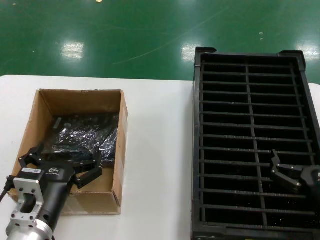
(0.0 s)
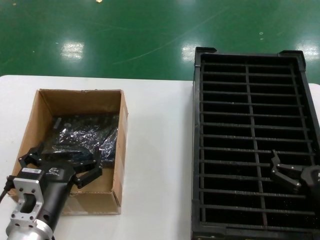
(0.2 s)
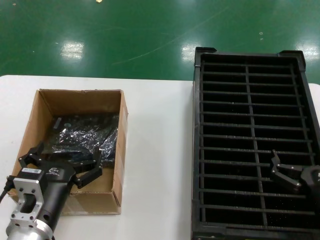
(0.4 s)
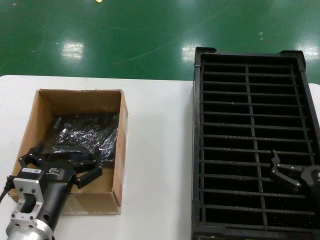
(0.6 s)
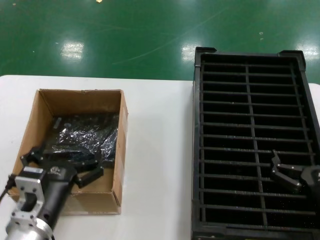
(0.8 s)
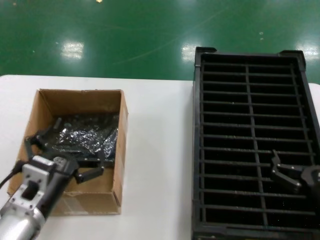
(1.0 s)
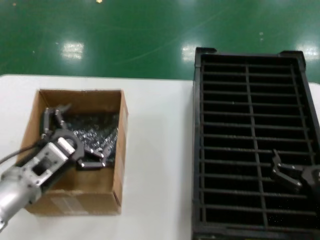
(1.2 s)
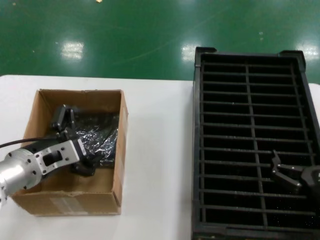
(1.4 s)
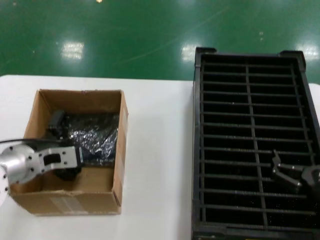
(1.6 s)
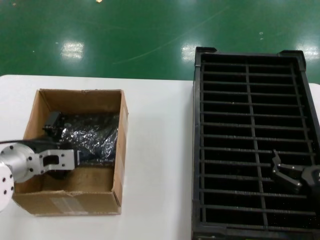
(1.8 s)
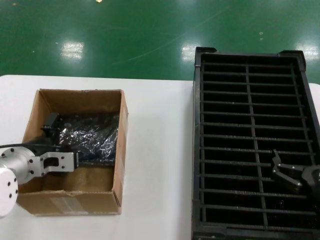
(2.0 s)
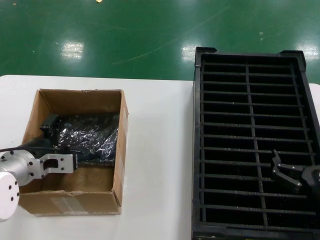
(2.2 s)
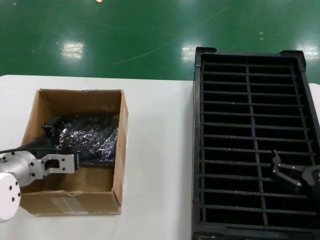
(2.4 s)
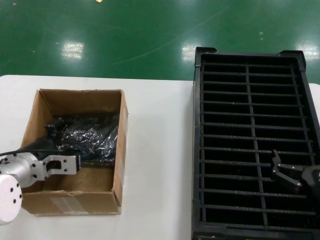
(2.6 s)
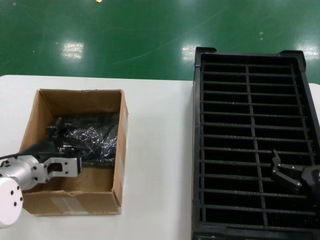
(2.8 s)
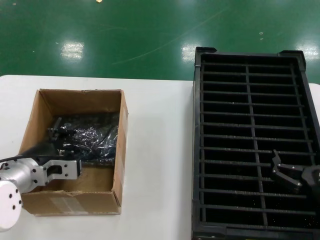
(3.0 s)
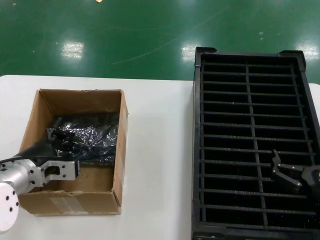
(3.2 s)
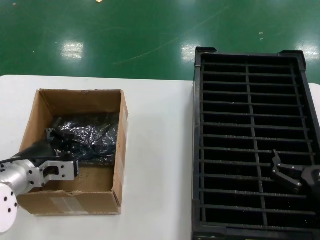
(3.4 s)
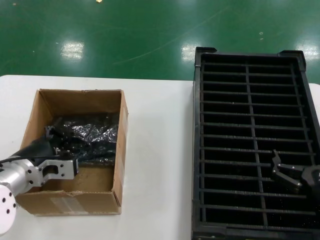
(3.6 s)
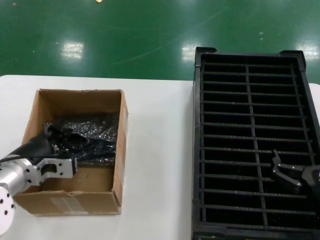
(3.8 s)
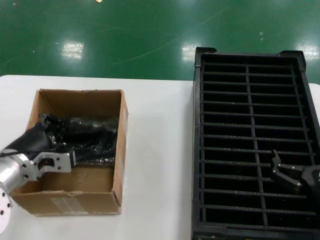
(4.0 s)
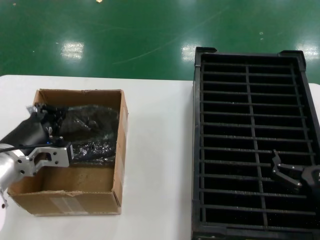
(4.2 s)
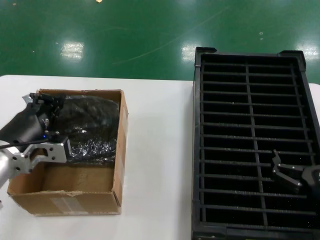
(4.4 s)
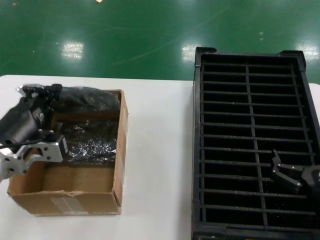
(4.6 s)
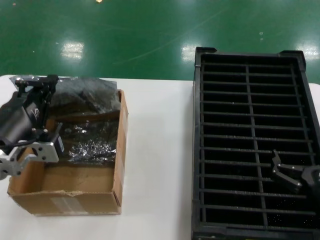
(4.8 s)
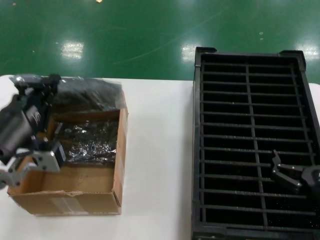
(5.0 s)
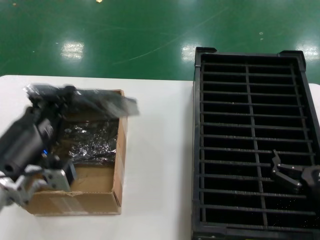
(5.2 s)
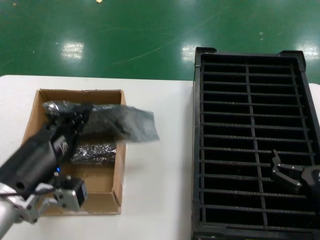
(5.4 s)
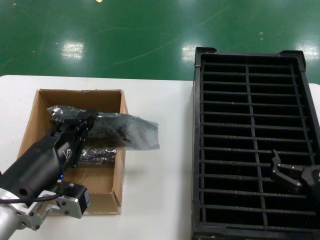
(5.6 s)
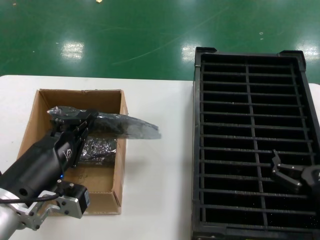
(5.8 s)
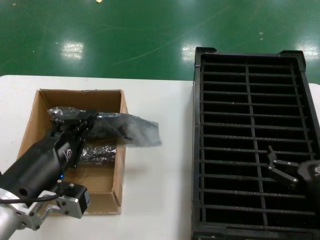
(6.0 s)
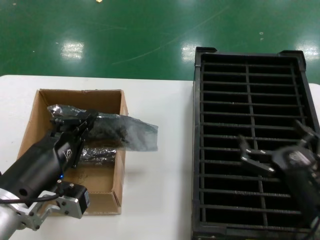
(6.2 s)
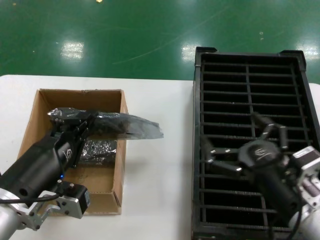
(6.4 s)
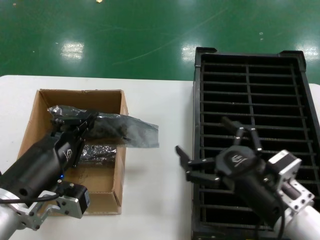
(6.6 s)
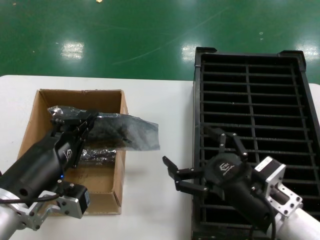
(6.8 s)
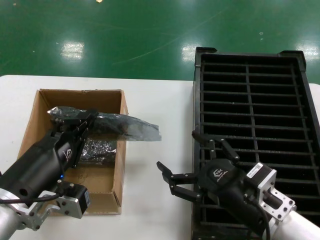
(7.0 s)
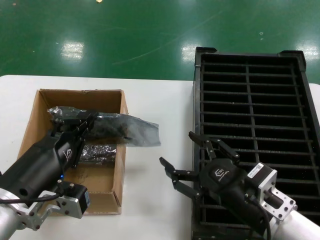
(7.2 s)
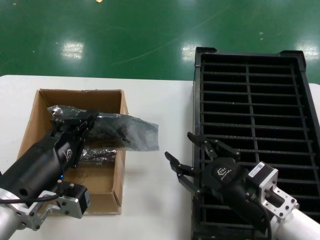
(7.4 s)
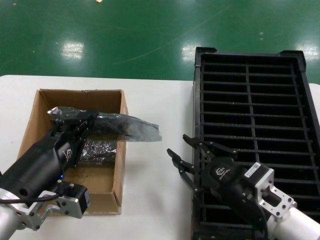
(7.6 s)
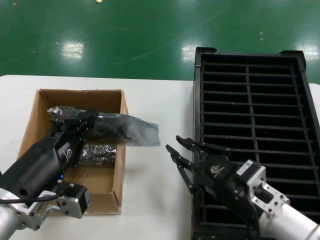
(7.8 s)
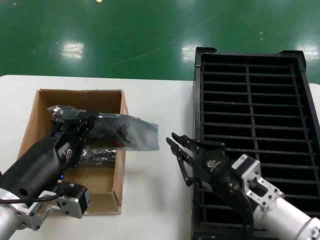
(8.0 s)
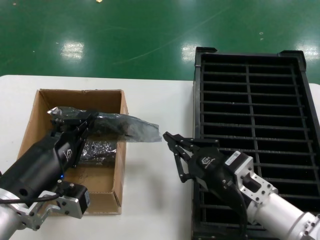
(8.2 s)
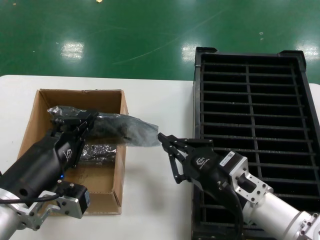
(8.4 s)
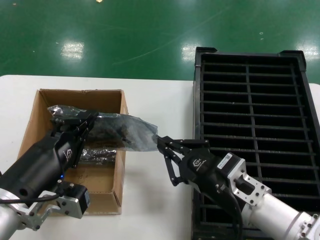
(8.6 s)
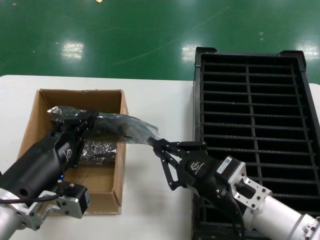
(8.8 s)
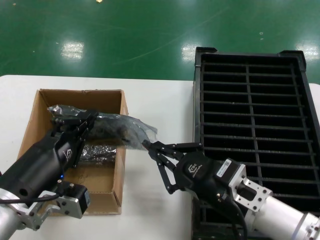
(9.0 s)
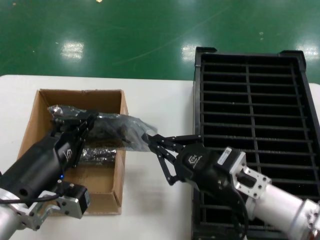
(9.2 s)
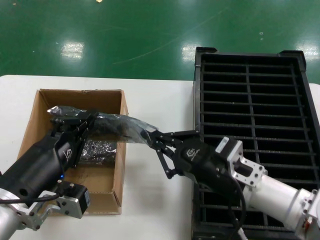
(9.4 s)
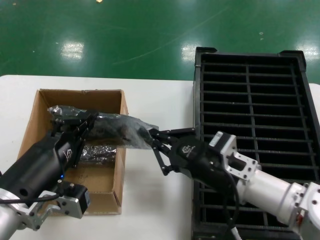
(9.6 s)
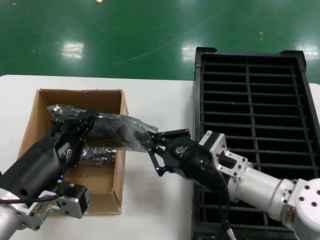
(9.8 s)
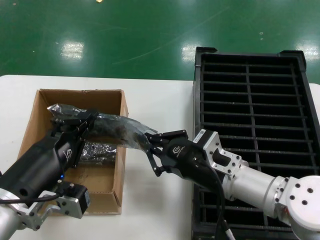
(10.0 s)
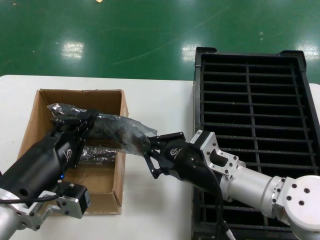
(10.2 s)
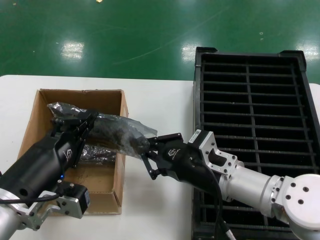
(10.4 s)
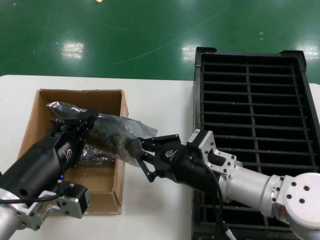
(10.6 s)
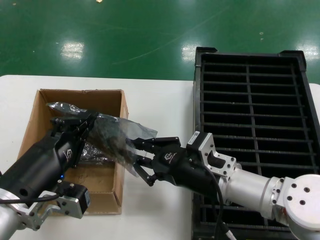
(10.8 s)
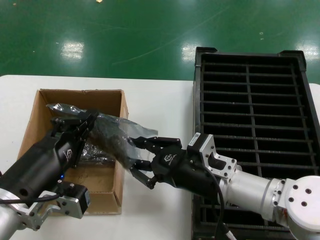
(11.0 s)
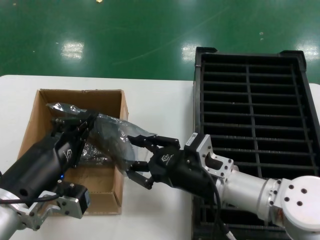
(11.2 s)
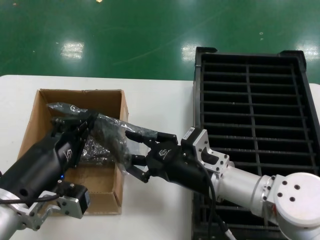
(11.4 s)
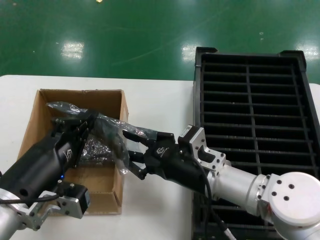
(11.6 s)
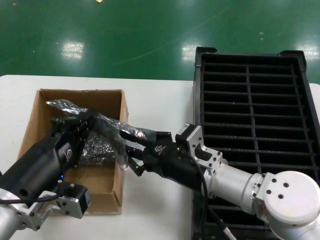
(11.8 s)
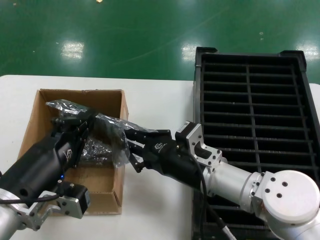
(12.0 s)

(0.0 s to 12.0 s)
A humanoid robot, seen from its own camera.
Task of the whole recording: take out graphics card from box remove packaging put into black container.
Step, 0.0 s - 3.4 s: Grasp the bag.
Step, 3.6 s - 5.4 s: Lift the bag.
0.0 s - 1.6 s: The left hand goes approximately 15 cm forward, upward and to the left.
1.6 s - 3.0 s: The hands move only a little.
3.0 s - 4.4 s: The left hand heads upward, covering about 5 cm.
4.4 s - 6.0 s: The left hand shifts some 10 cm backward and to the right.
6.0 s - 7.6 s: The right hand heads to the left, covering about 10 cm.
7.6 s - 9.0 s: There are only small adjustments of the hands.
9.0 s - 10.4 s: The right hand heads forward, covering about 5 cm.
10.4 s - 12.0 s: There are only small adjustments of the hands.

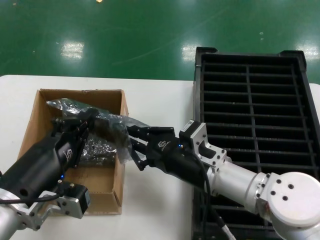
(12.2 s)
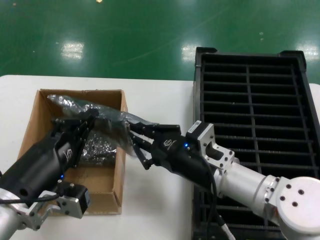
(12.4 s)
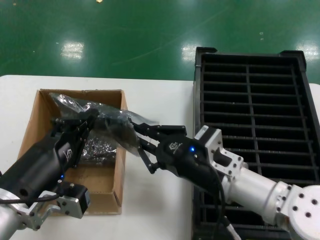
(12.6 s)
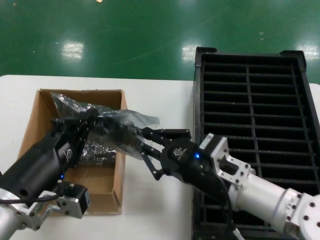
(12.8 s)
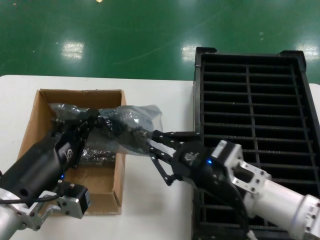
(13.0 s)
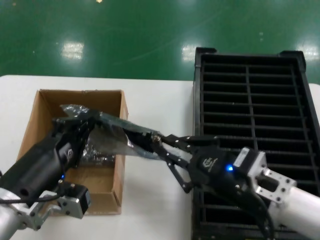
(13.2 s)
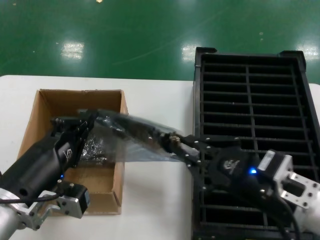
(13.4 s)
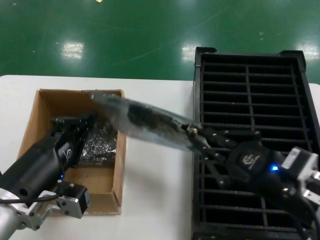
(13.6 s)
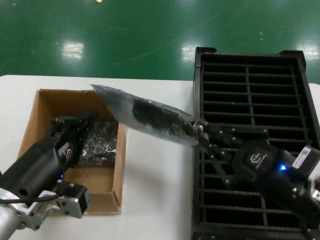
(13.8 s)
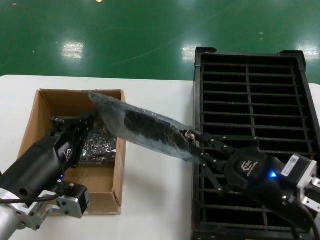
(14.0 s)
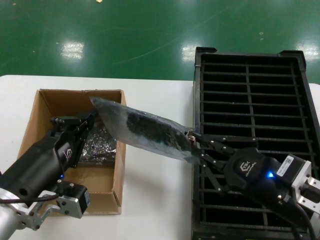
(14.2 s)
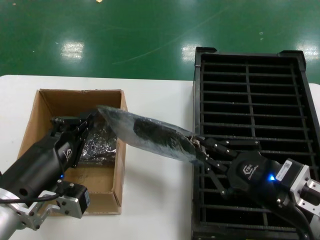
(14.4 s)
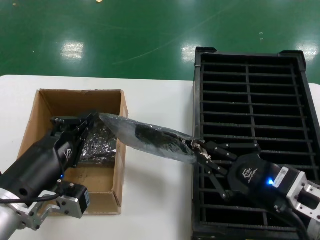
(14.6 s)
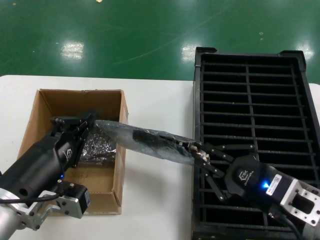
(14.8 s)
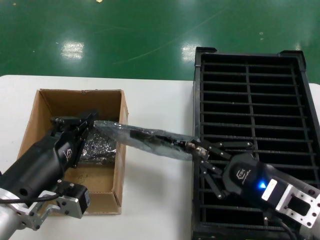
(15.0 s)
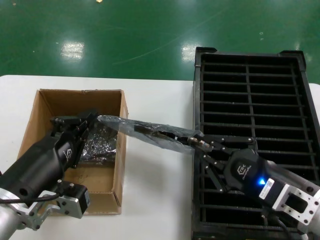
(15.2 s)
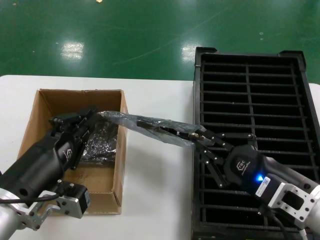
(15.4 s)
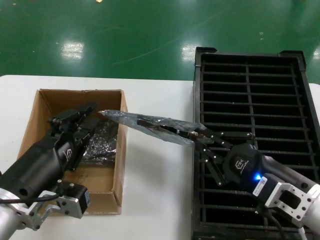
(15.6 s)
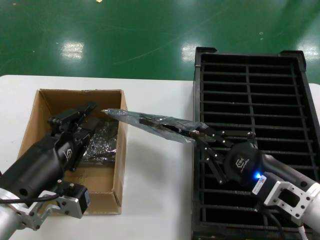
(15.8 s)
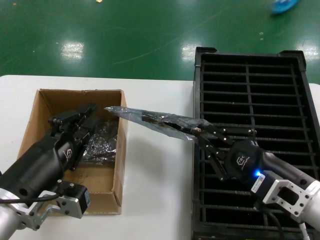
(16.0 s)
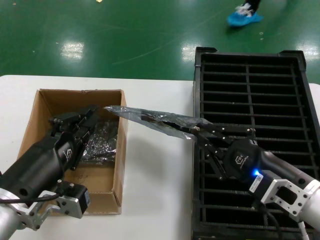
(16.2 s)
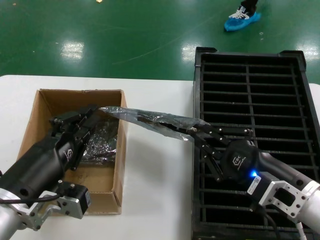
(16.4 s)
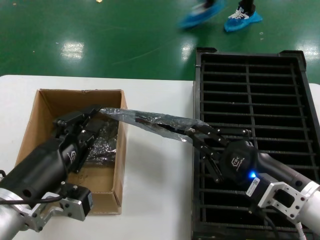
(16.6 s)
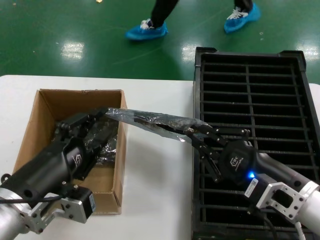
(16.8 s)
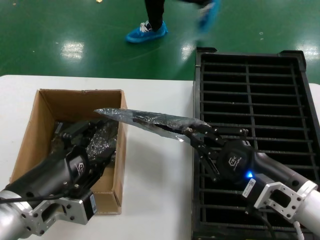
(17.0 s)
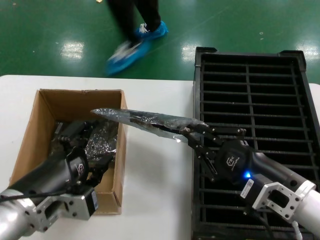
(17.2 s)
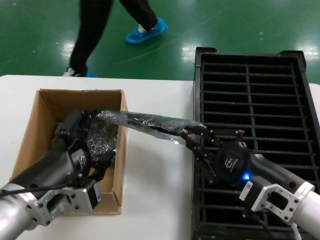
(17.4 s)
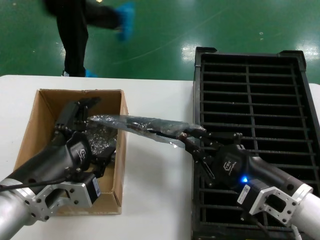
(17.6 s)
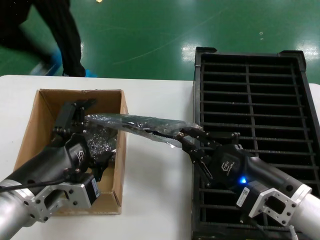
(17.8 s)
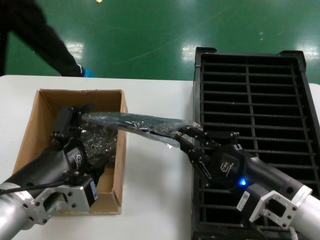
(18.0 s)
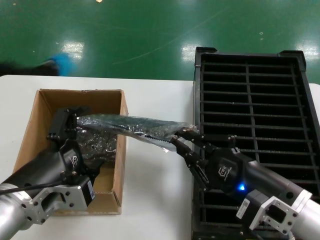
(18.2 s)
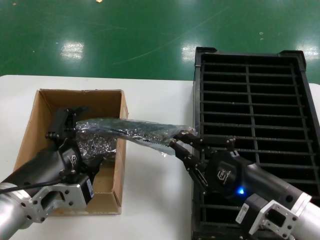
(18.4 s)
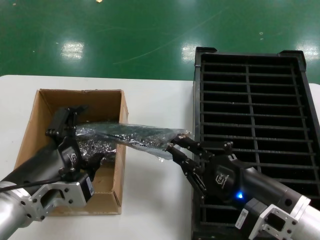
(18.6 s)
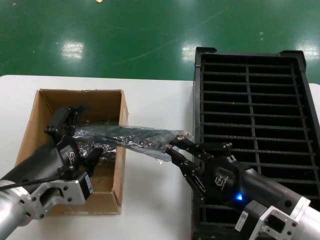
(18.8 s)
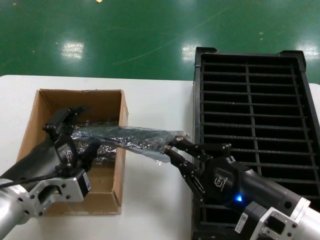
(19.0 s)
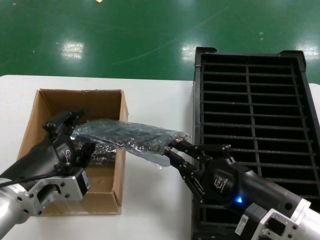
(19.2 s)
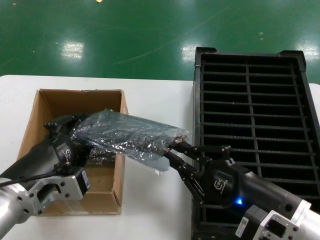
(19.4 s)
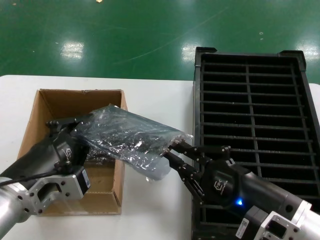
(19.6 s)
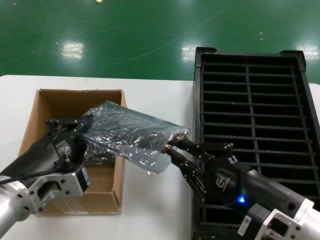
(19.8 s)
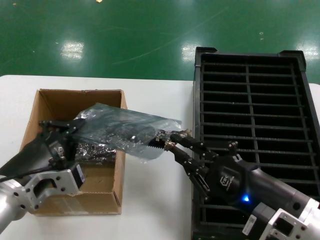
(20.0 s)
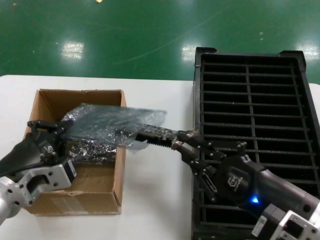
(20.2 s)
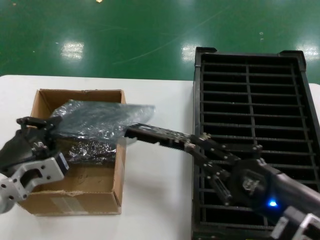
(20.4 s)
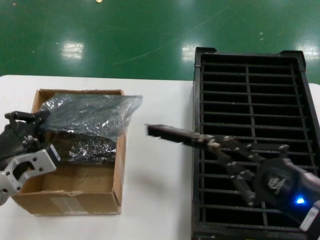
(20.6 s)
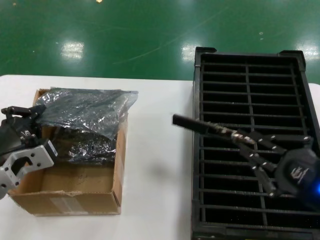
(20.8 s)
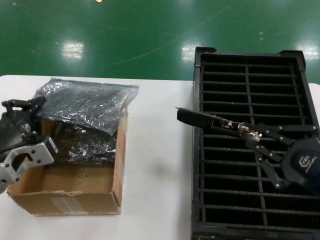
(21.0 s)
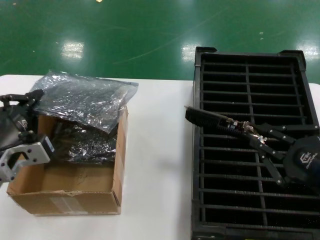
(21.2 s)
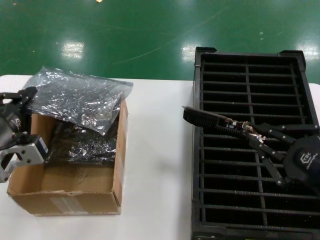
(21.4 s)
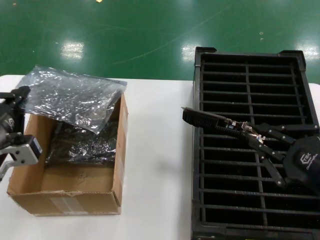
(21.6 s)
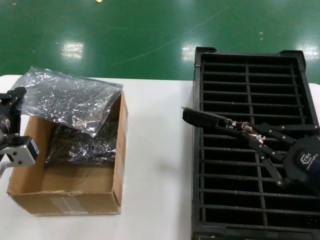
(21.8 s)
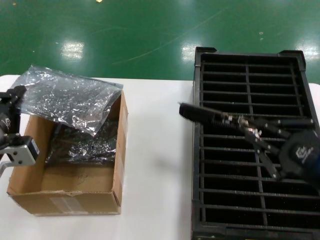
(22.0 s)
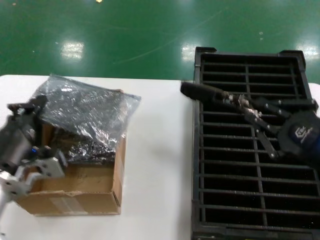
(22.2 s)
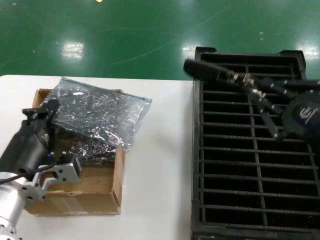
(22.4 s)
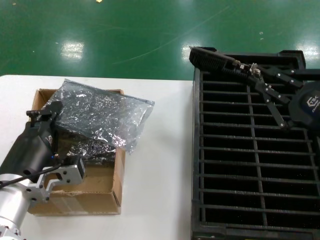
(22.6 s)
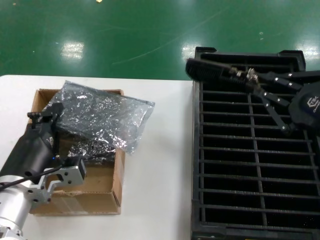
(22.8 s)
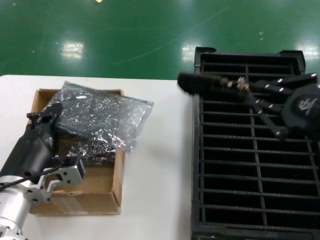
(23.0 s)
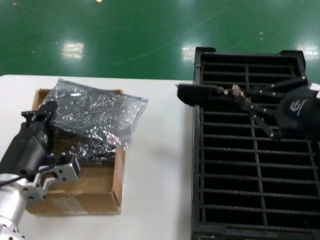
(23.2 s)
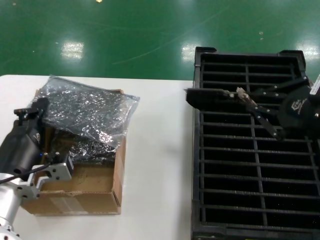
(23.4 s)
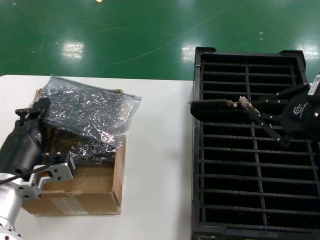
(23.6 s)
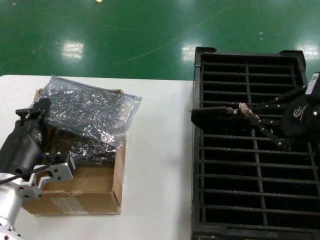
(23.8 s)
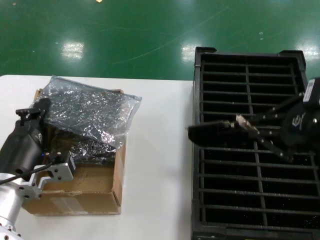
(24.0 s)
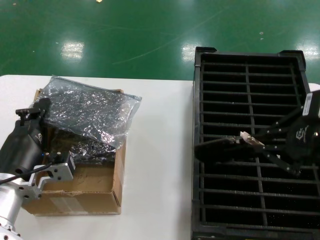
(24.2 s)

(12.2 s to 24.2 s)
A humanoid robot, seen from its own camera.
Task of the whole recording: take out graphics card from box remove packaging put into black container.
Step, 12.2 s - 20.4 s: Take out the hard disk of the bag.
12.2 s - 13.8 s: The right hand travels to the right and backward by some 20 cm.
13.8 s - 15.2 s: The right hand heads downward, covering approximately 5 cm.
15.2 s - 16.6 s: The hands move only a little.
19.8 s - 21.2 s: The right hand shifts about 10 cm to the right and upward. Meanwhile the left hand ends up some 5 cm from where it was.
21.2 s - 22.6 s: The left hand changes place by some 5 cm. The right hand changes place by roughly 5 cm.
22.6 s - 24.2 s: The right hand moves upward, approximately 10 cm.
